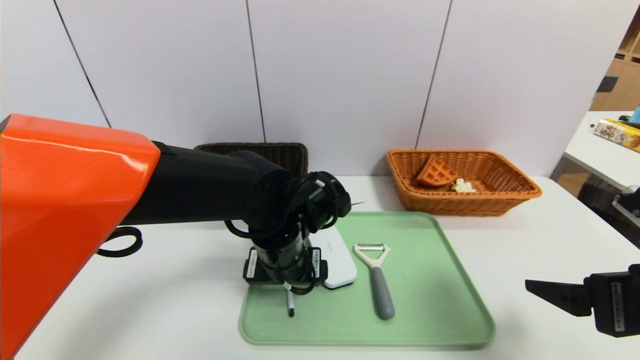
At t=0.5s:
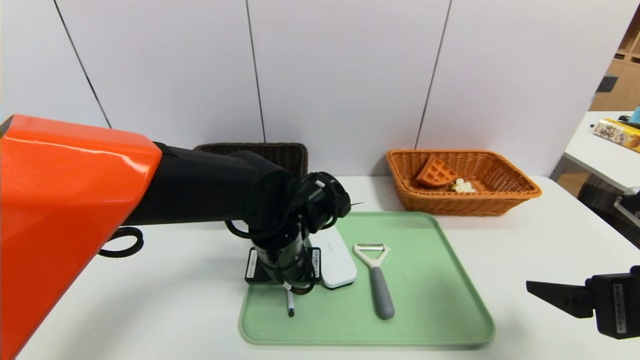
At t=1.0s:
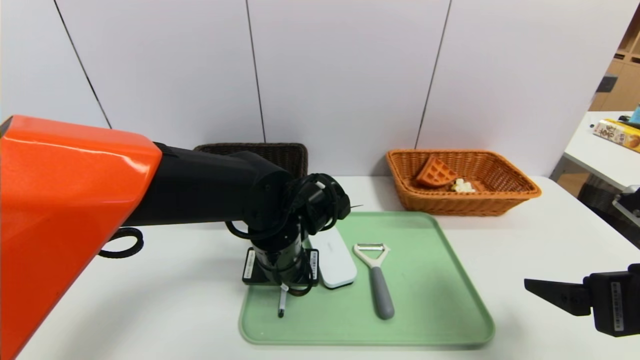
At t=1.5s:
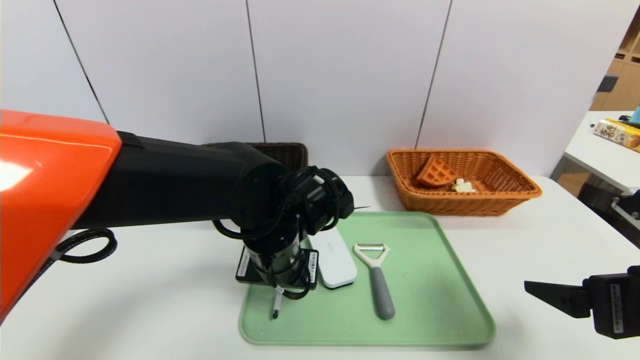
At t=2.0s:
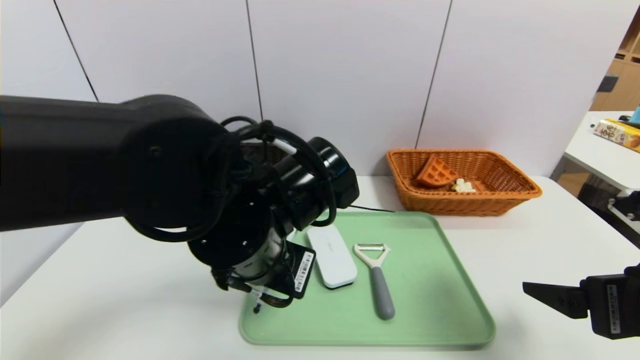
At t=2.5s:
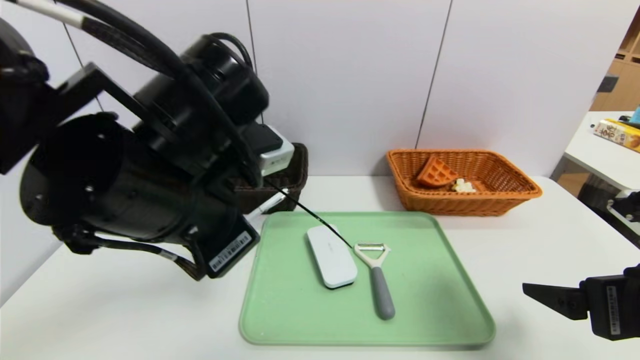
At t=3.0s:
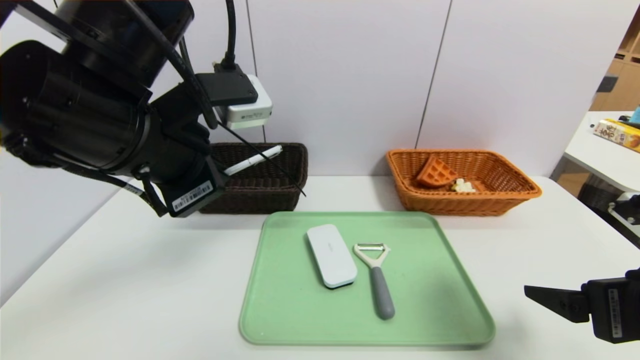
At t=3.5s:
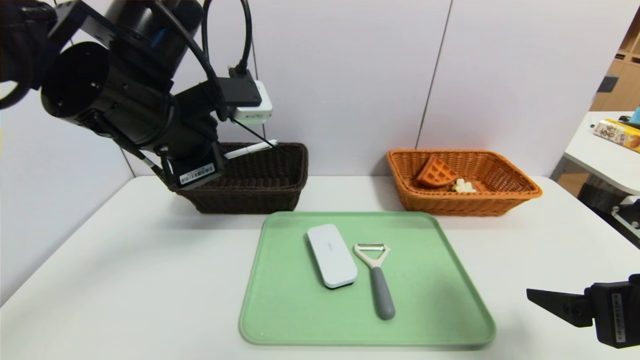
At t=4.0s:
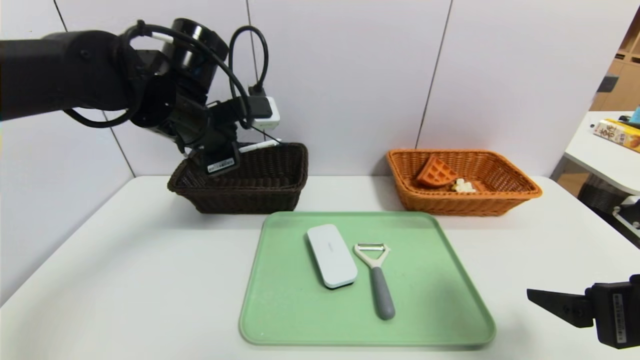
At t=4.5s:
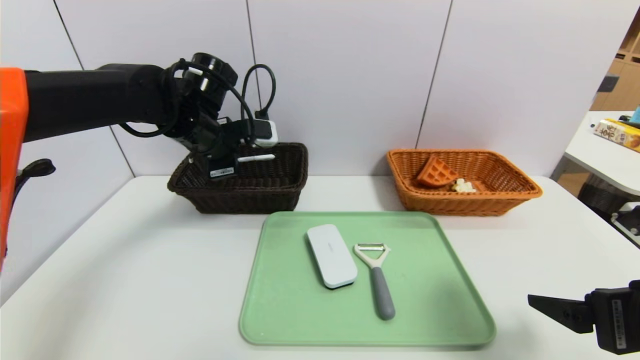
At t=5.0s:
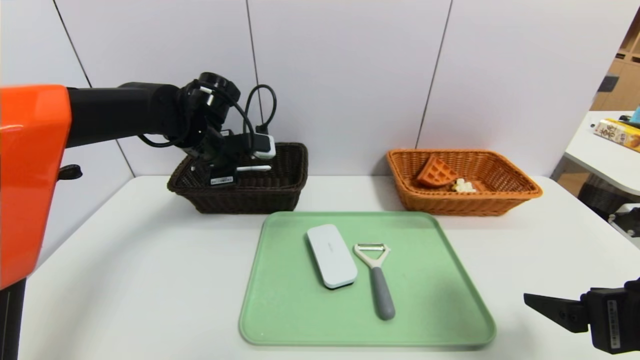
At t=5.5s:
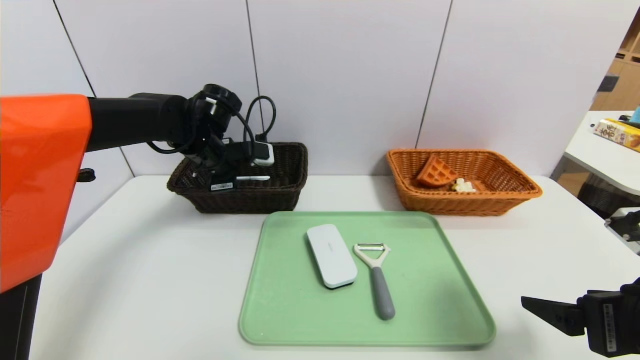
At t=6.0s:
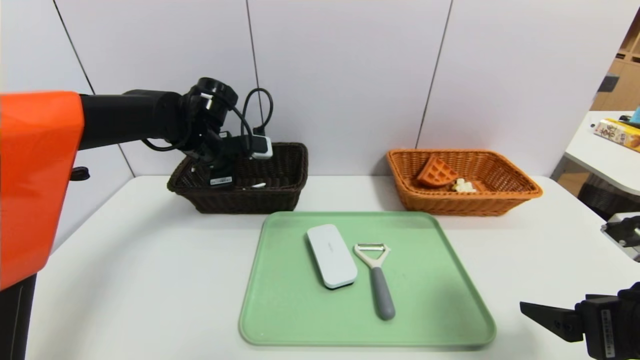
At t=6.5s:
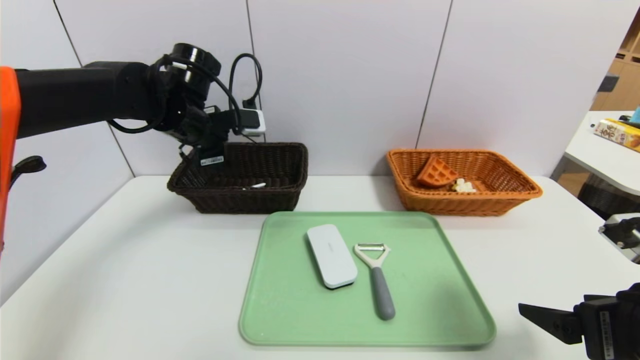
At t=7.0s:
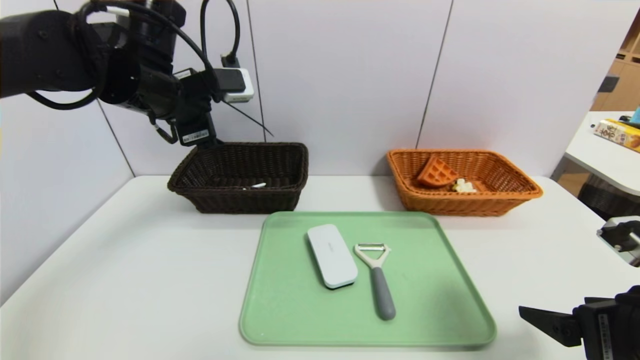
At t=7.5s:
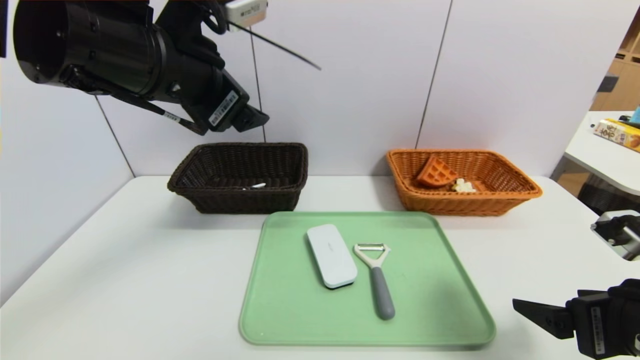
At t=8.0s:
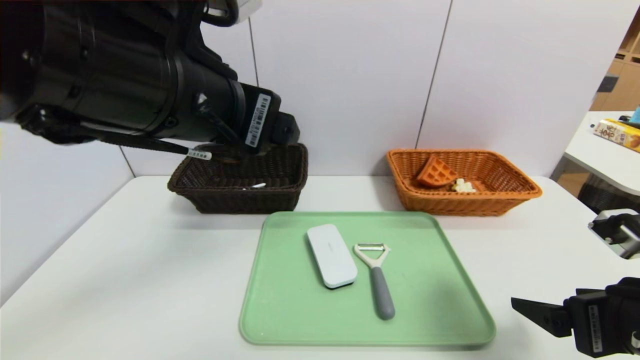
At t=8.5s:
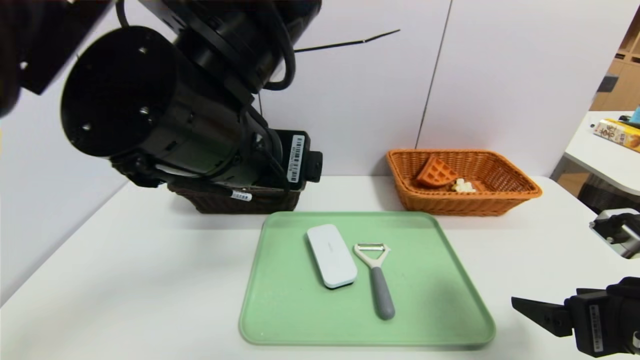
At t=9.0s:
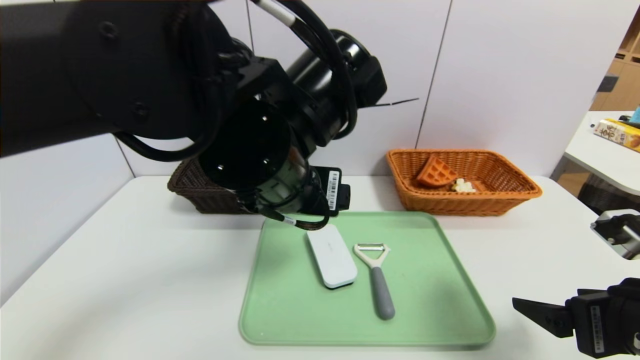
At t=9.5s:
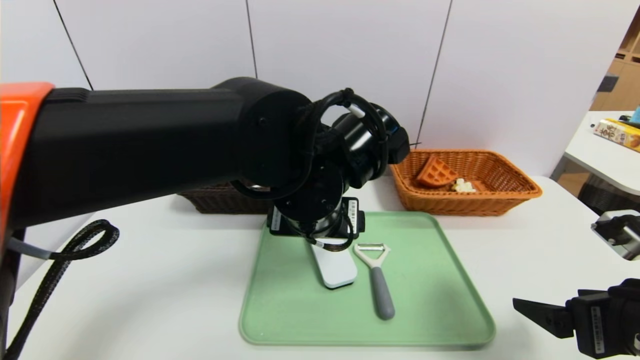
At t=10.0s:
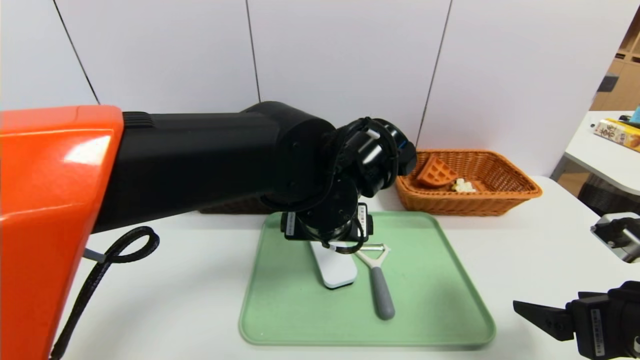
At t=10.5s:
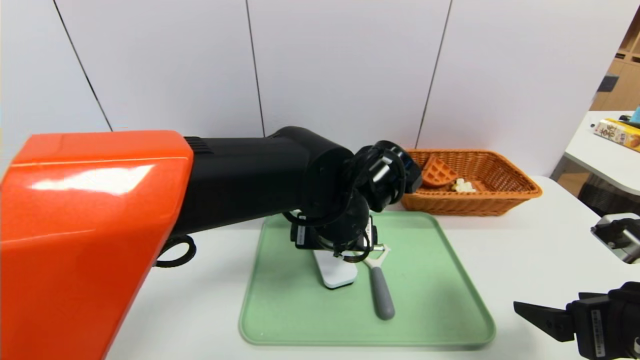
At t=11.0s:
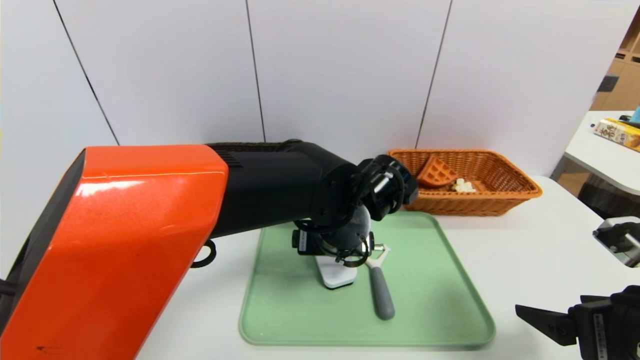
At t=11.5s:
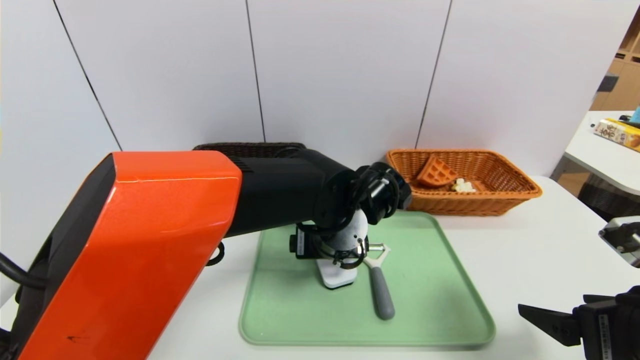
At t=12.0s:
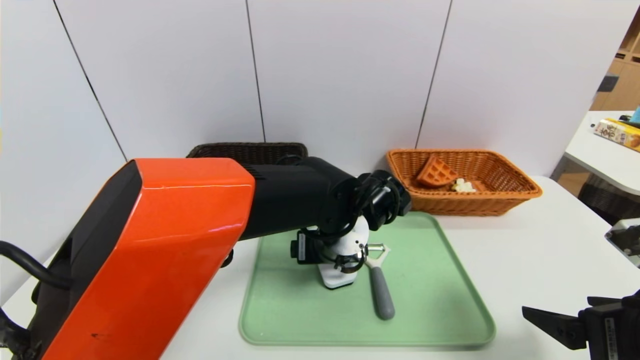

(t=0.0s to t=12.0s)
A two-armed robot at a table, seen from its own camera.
Task of the whole recording: place the food in the right basket with the right gripper, and place the non food items in the left basket with the left gripper.
Step, t=0.0s - t=6.0s: Grasp the ballpoint pen and put it in the left basket.
t=0.0s - t=2.0s: The left gripper is displaced upward and backward by some 10 cm, and closes its fingers.
t=2.0s - t=4.0s: The left gripper goes roughly 15 cm forward and to the left.
t=4.0s - t=6.0s: The left gripper travels forward and downward by roughly 10 cm, and opens its fingers.
t=6.0s - t=8.0s: The left gripper heads backward and upward, covering approximately 25 cm.
t=8.0s - t=10.0s: The left gripper shifts approximately 20 cm downward, to the right and forward.
t=10.0s - t=12.0s: The left gripper travels downward by roughly 5 cm.

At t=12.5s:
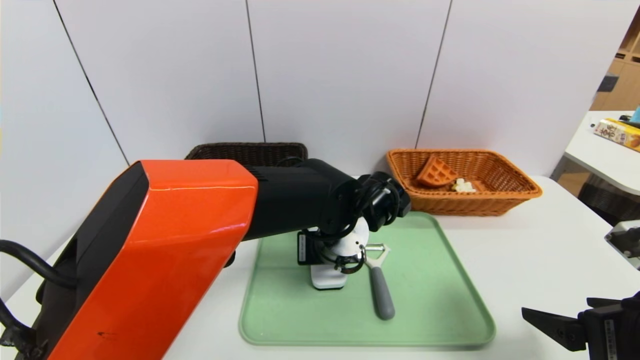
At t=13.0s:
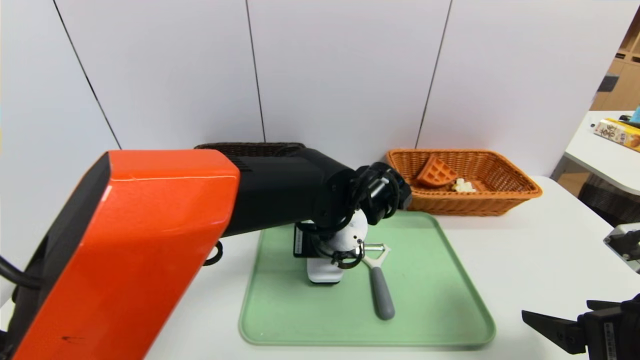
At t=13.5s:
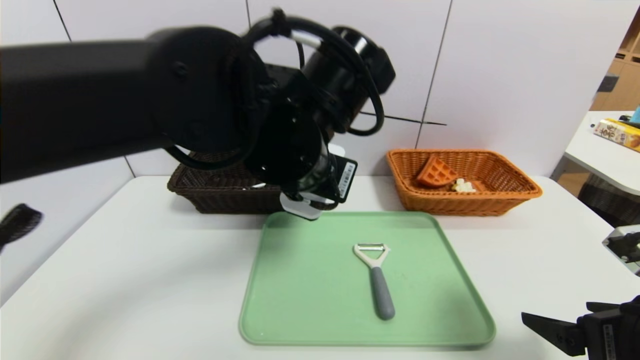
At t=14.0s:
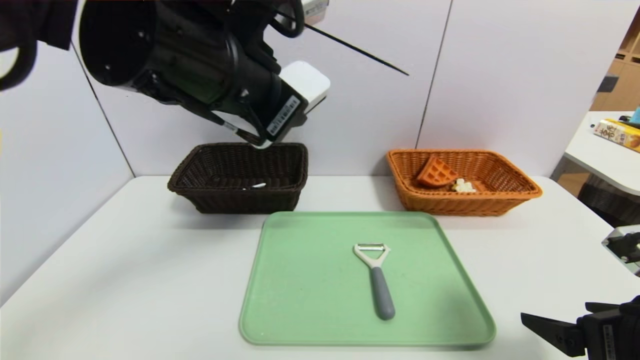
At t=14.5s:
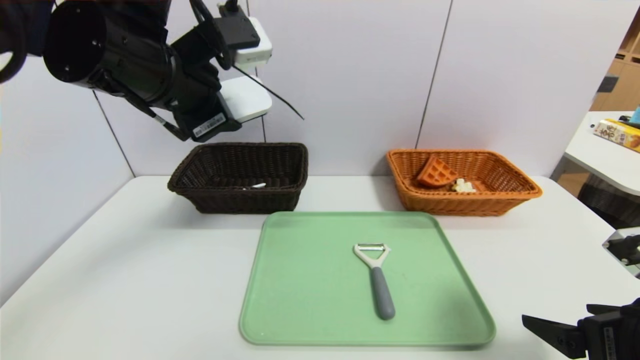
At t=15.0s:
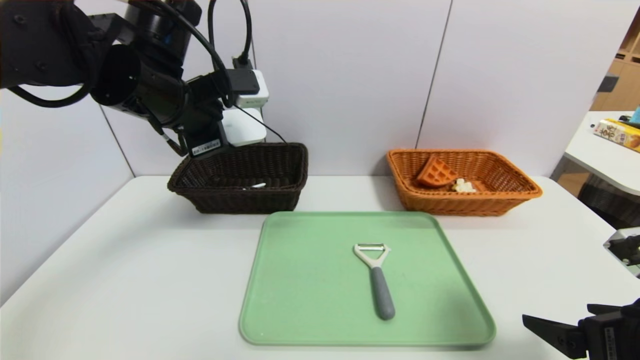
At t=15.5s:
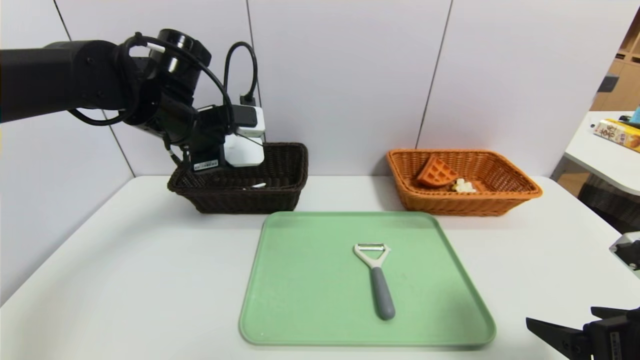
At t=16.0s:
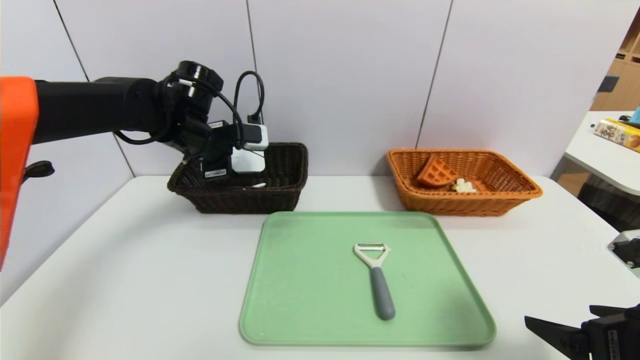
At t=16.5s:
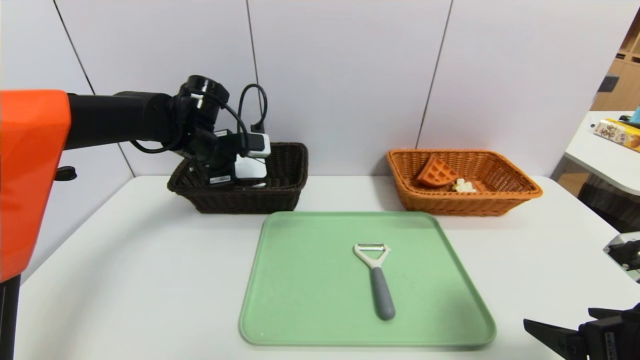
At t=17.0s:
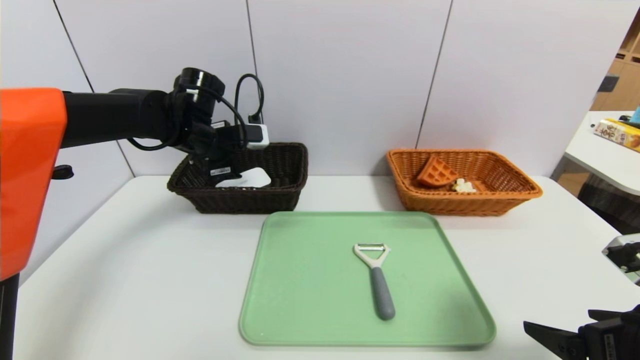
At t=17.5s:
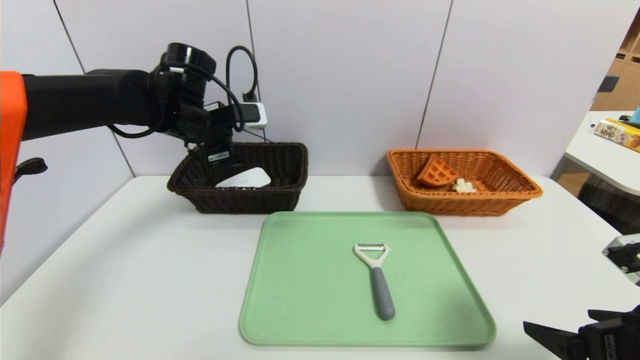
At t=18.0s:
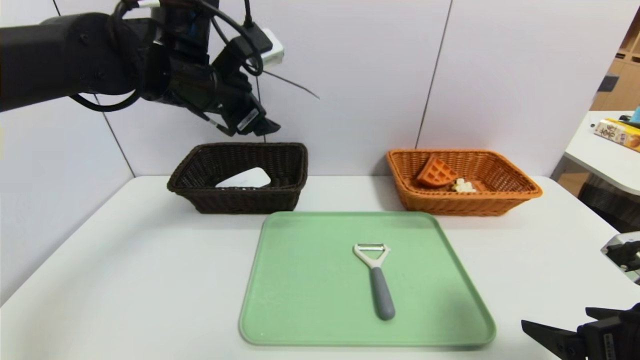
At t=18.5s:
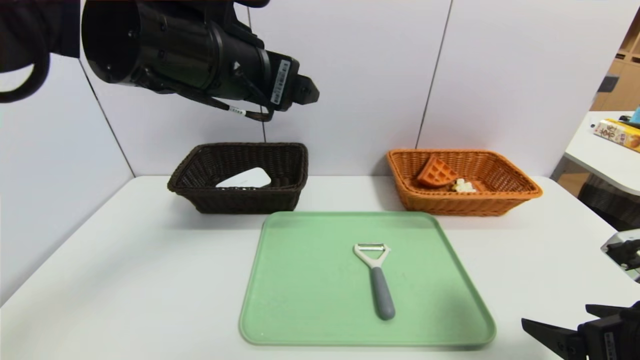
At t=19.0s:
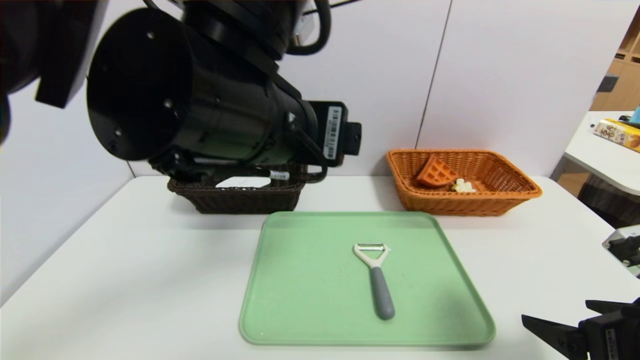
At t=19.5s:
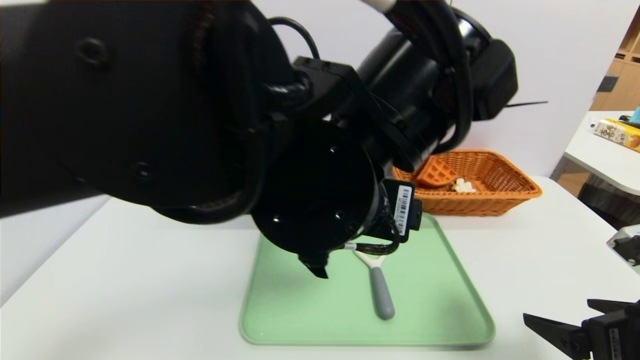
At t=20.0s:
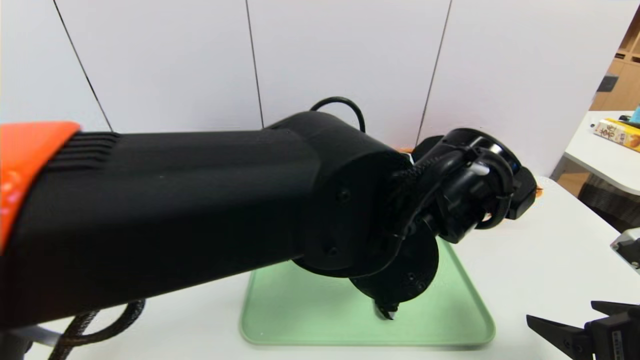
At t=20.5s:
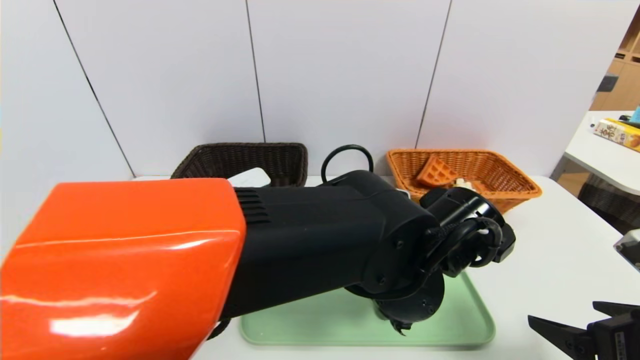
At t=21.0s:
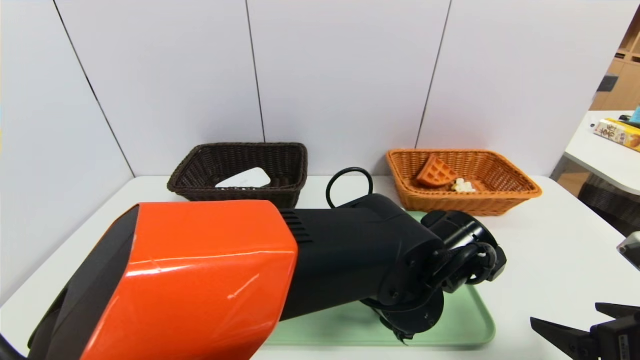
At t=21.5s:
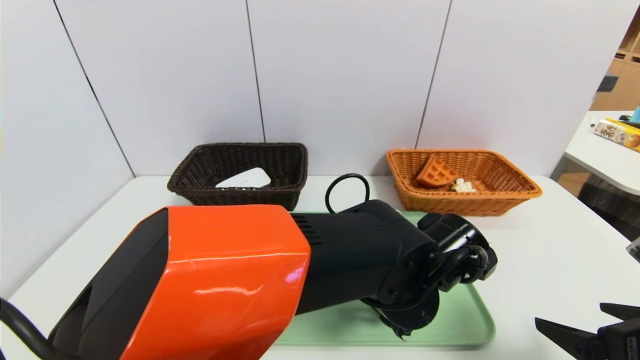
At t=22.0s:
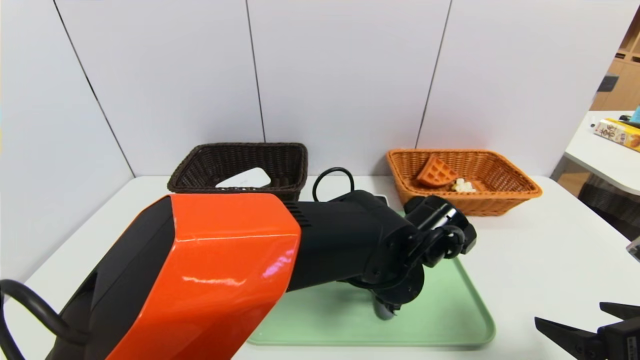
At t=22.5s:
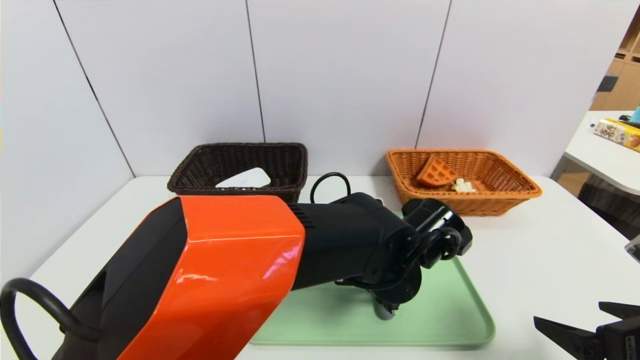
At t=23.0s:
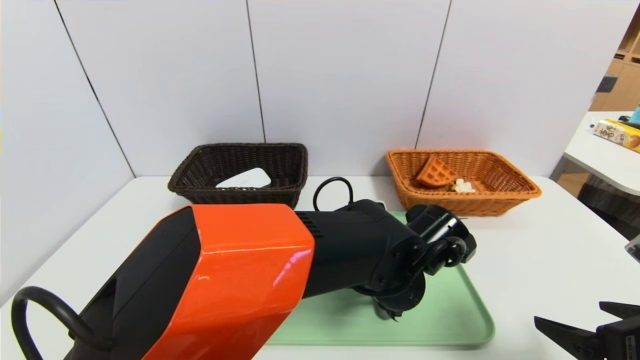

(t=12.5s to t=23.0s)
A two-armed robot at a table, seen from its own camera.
Task of the whole recording: place the food in the right basket with the right gripper, and place the non food items in the left basket with the left gripper.
Step, t=12.5s - t=17.0s: Grasp the white eraser and put it in the left basket.
t=12.5s - t=14.5s: The left gripper goes about 30 cm upward and to the left.
t=14.5s - t=16.5s: The left gripper heads forward and downward, covering roughly 20 cm.
t=16.5s - t=19.0s: The left gripper travels backward, to the right and upward by some 30 cm.
t=19.0s - t=21.0s: The left gripper shifts about 25 cm downward and to the right.
t=21.0s - t=23.0s: The grippers move only a little.
